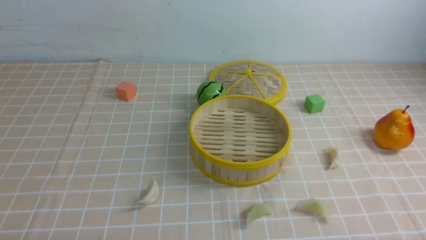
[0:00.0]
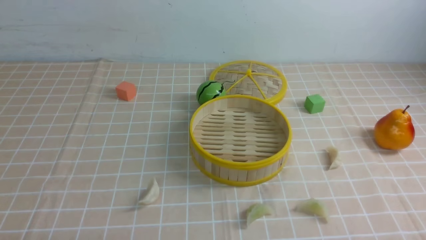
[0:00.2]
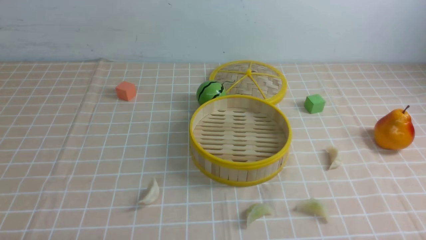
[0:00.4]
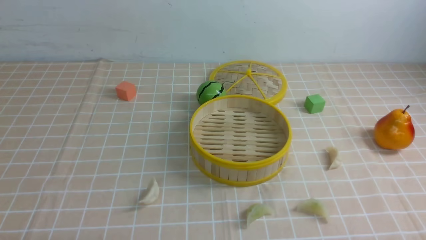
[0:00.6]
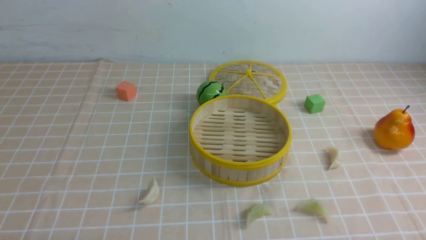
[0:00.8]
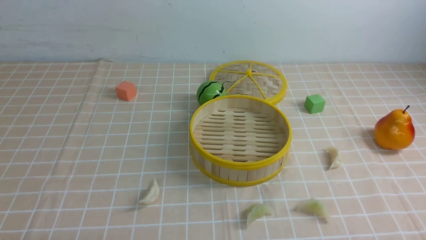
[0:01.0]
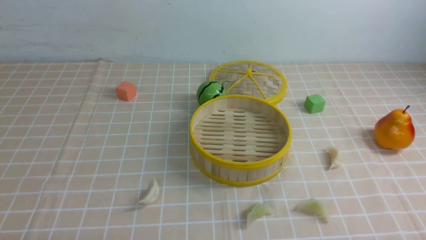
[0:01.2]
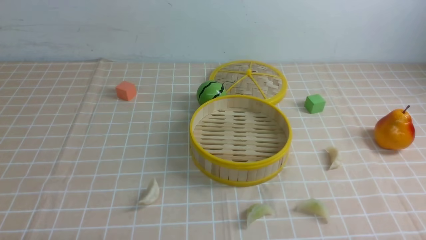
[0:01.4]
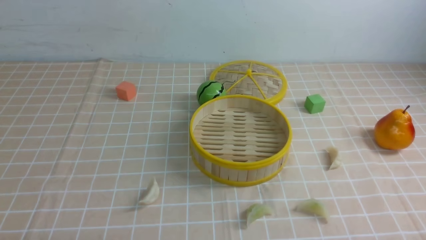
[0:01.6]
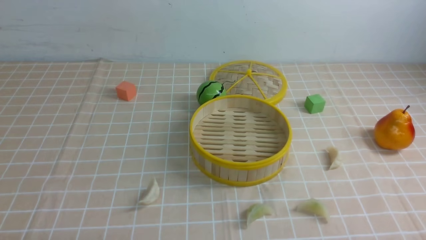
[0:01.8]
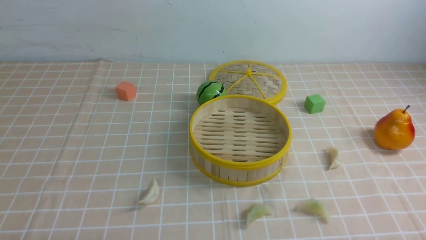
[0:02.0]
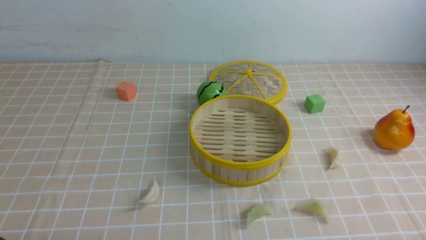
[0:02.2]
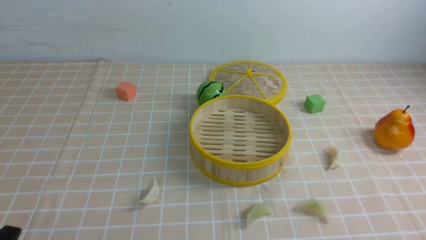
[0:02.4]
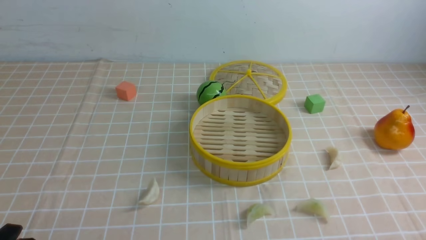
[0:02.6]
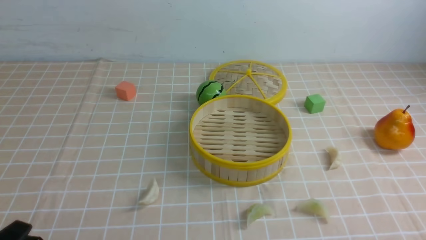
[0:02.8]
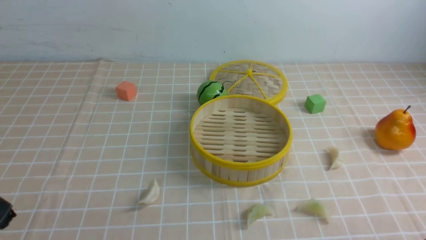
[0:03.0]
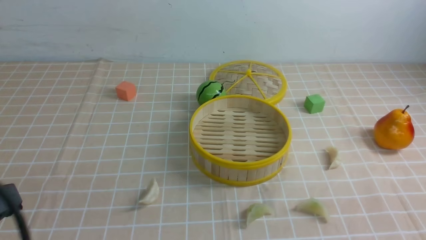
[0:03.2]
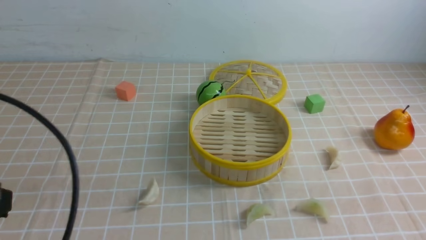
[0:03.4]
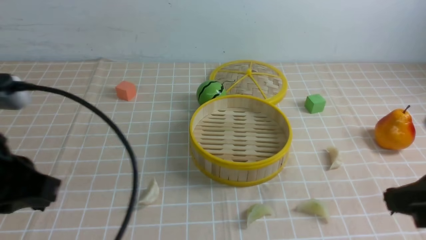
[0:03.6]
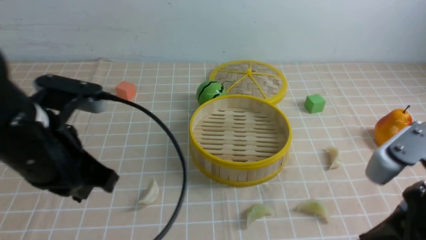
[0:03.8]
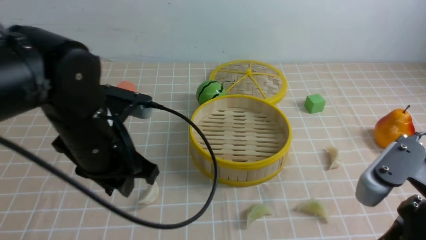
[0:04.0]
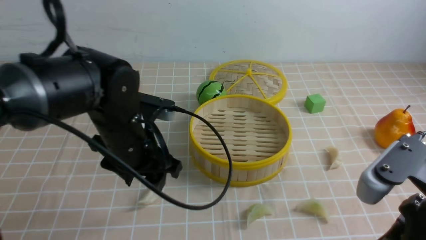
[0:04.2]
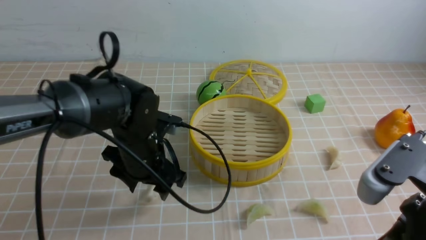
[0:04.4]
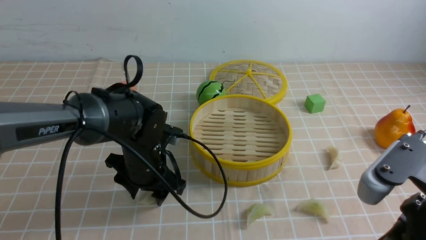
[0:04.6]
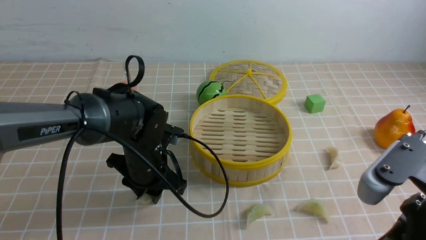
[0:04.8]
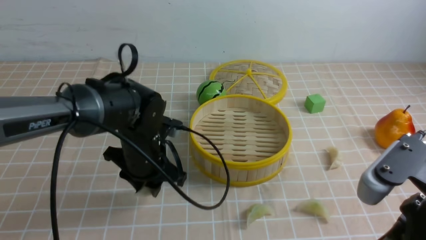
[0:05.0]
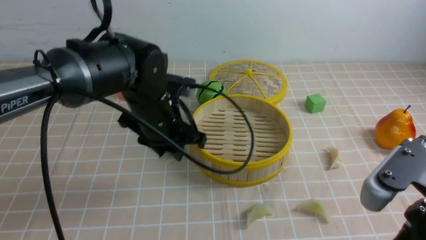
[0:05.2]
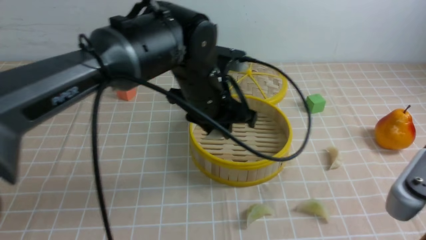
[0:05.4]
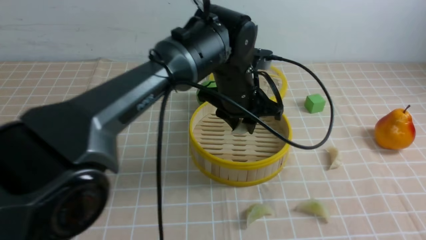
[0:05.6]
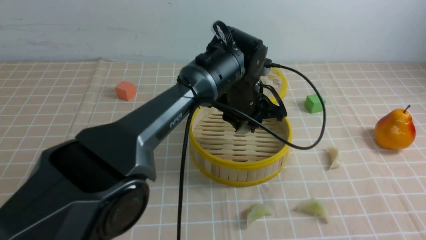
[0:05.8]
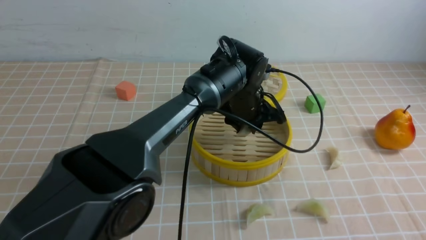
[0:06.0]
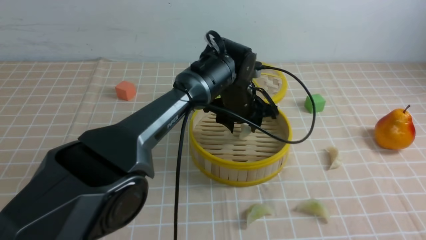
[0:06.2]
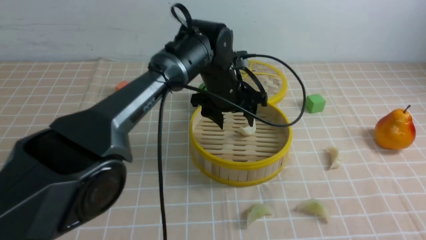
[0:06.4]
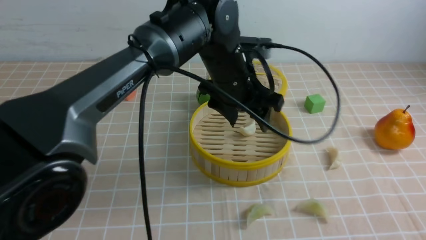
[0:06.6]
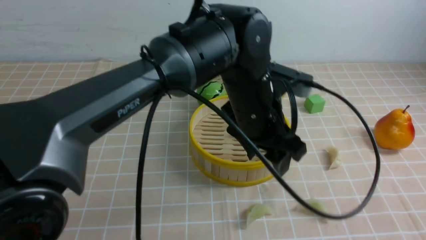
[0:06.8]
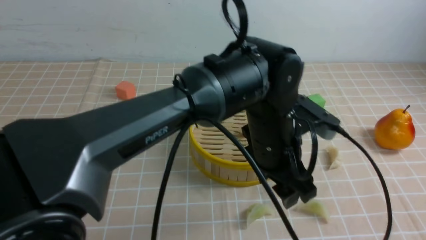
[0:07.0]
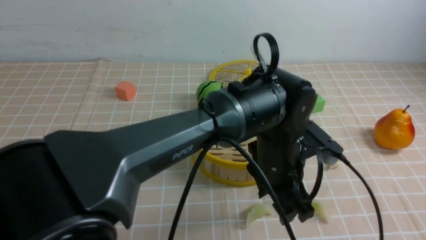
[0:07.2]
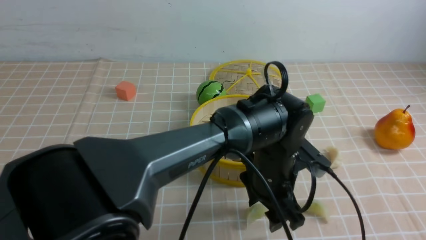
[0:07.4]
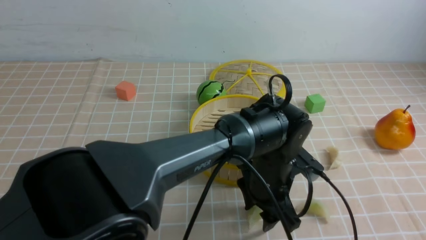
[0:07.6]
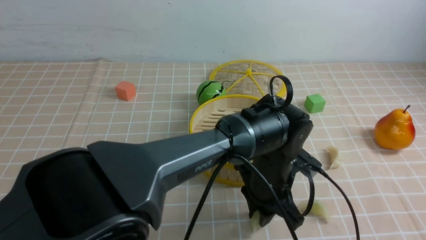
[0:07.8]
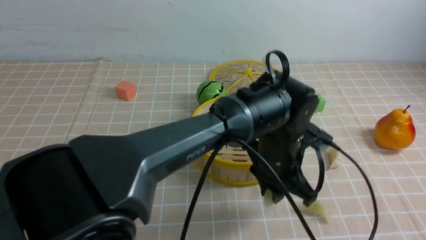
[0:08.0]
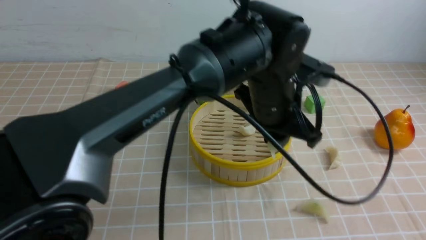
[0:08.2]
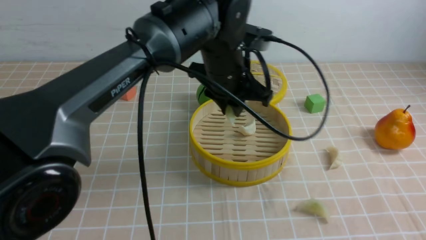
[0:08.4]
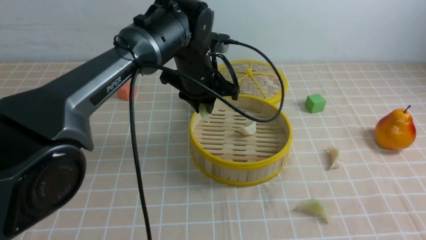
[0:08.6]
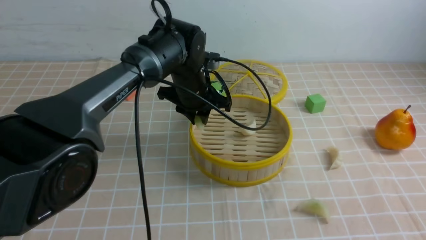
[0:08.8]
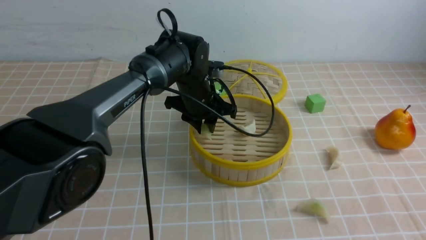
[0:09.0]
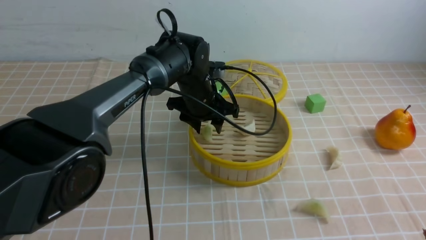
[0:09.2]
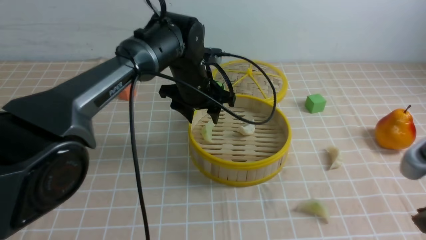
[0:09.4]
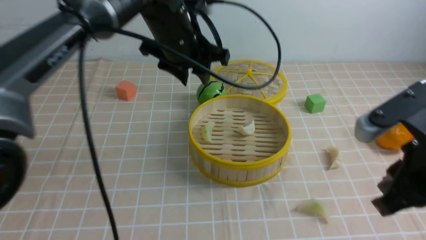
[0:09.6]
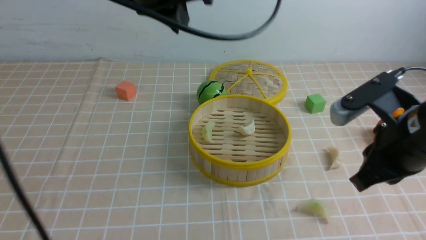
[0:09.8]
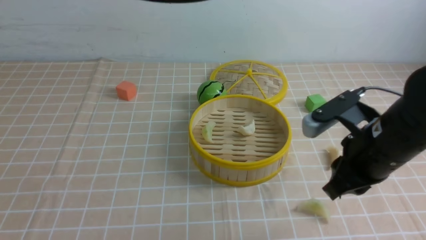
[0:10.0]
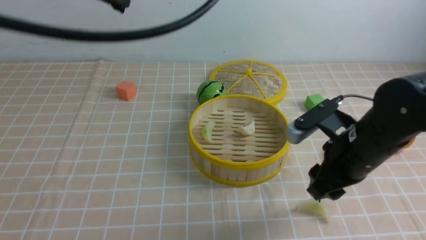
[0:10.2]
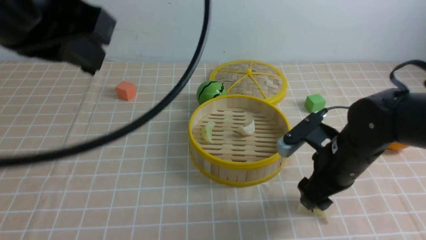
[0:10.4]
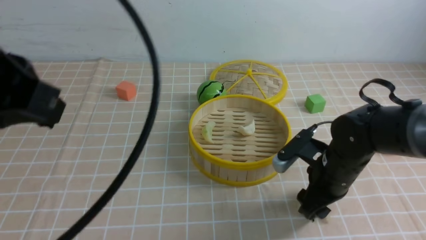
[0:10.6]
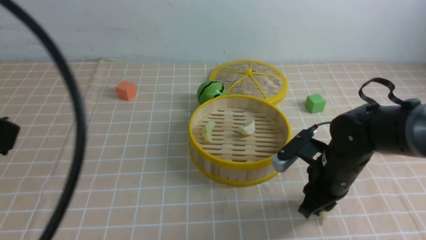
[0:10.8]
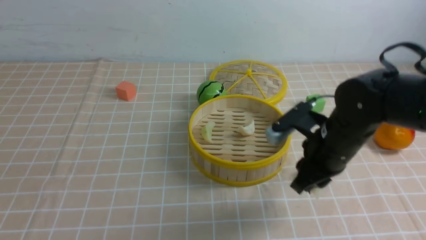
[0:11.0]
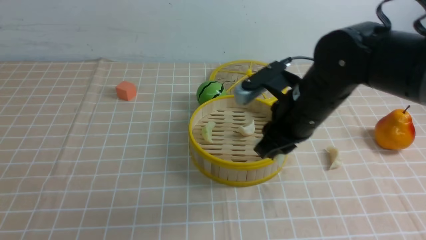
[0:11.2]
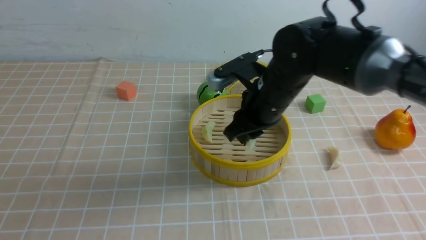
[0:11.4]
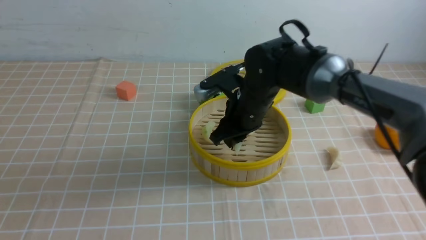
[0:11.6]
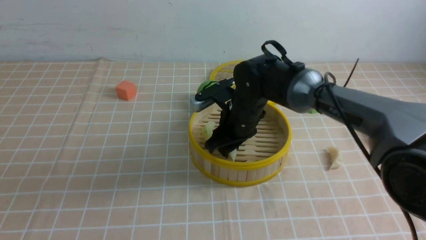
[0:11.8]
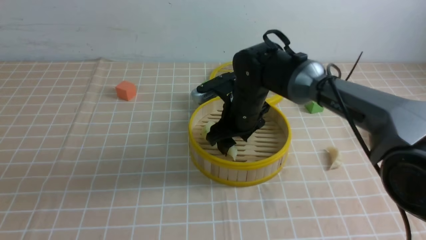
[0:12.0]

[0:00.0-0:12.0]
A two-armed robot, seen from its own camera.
Task of the whole recording: put the dumplings into the steamer on the table with the brown tablecloth.
Step, 0:00.0 to 0:04.6: use the left arm to grab a dumpling.
Step, 0:05.0 to 0:06.2: use the left arm to put the dumpling into the steamer.
Step, 0:06.4 to 0:07.6: use the left arm to grab a dumpling.
Step, 0:08.0 to 0:09.2: use the left arm to put the dumpling into the steamer.
Step, 0:09.4 to 0:10.6: use the right arm to grab a dumpling.
0:00.0 to 0:01.6: Both grippers stay put.
0:03.0 to 0:04.4: The right gripper moves forward, upward and to the left, roughly 15 cm; the left gripper heads forward and to the right, covering some 30 cm, and opens up.
0:04.4 to 0:06.0: The left gripper shifts roughly 20 cm to the right and forward, and closes. The right gripper goes some 10 cm backward.
0:06.0 to 0:07.6: The left gripper heads backward, covering some 15 cm.
0:07.6 to 0:09.0: The left gripper moves forward and to the left, approximately 20 cm.
0:09.0 to 0:10.4: The right gripper travels forward and downward by about 25 cm, and opens its fingers. The left gripper goes about 40 cm backward, upward and to the left, and closes.
0:10.4 to 0:12.0: The left gripper heads backward and to the left, covering some 15 cm; the right gripper goes approximately 15 cm to the left and forward, and closes and opens again.

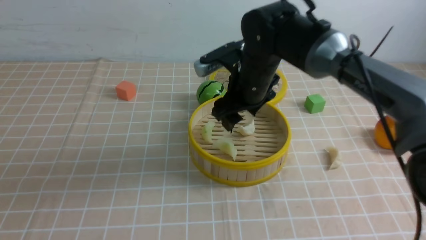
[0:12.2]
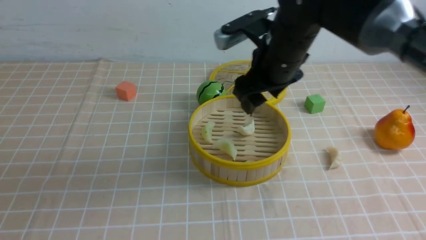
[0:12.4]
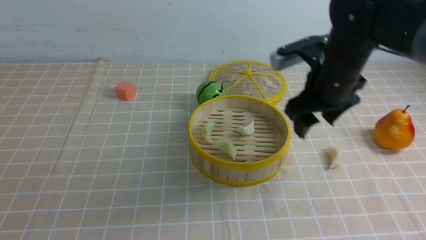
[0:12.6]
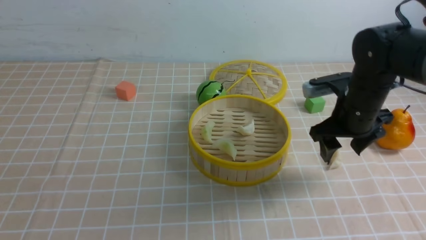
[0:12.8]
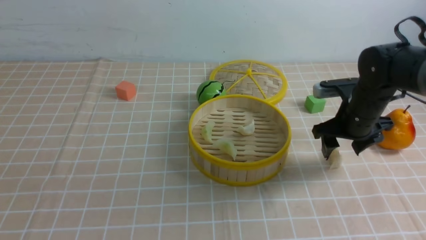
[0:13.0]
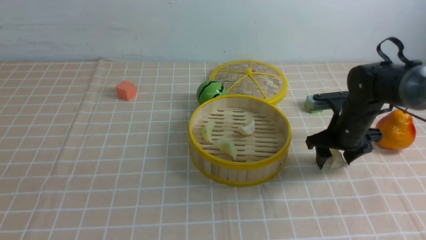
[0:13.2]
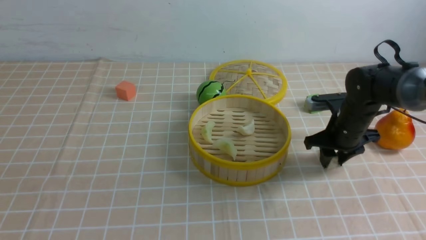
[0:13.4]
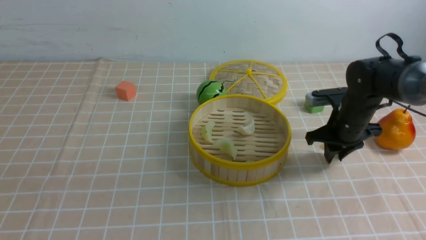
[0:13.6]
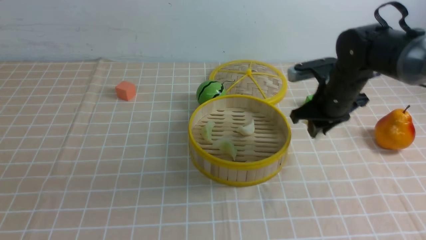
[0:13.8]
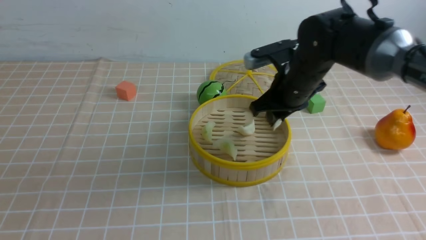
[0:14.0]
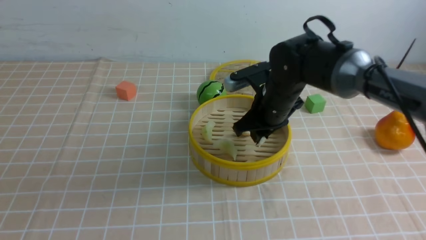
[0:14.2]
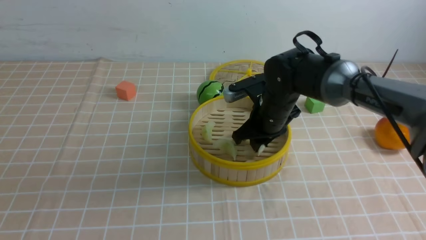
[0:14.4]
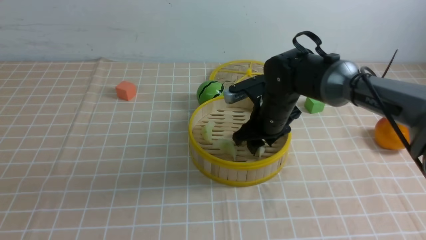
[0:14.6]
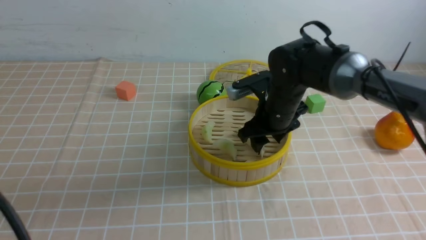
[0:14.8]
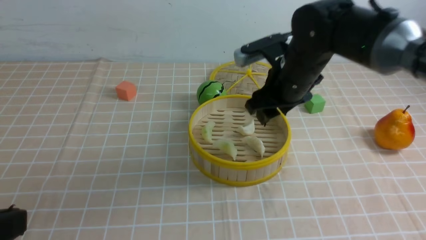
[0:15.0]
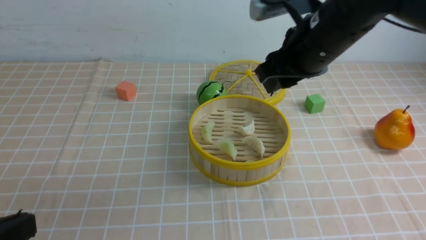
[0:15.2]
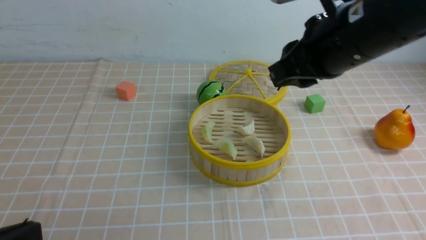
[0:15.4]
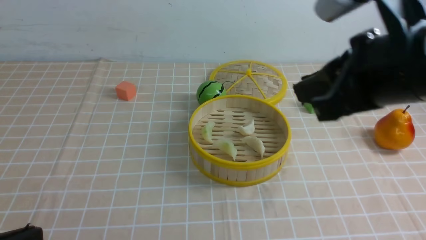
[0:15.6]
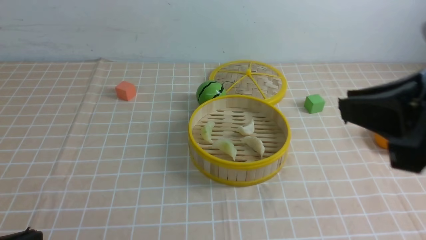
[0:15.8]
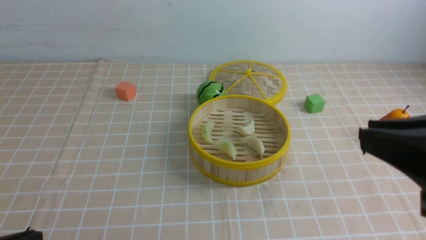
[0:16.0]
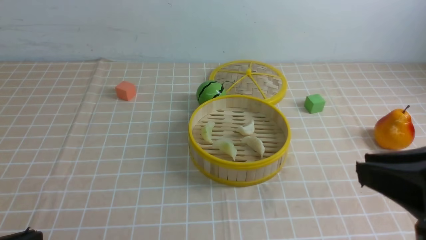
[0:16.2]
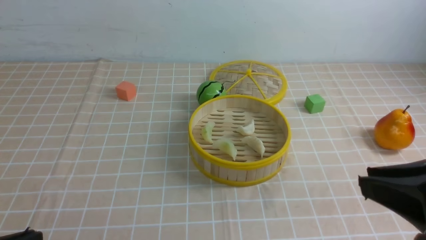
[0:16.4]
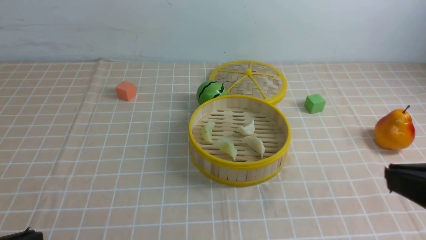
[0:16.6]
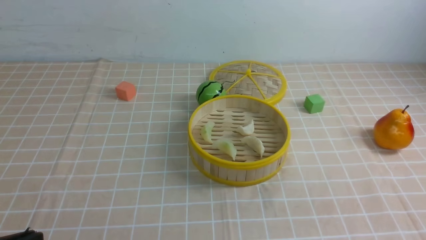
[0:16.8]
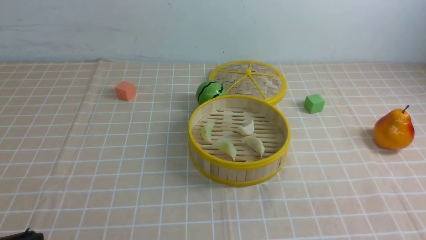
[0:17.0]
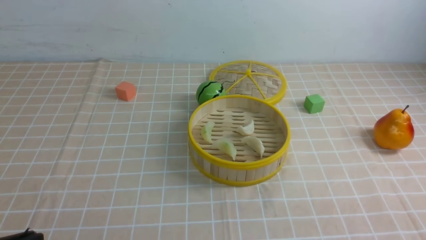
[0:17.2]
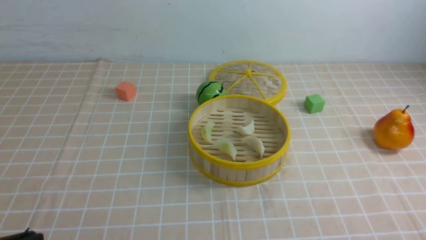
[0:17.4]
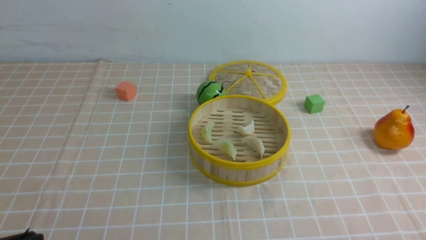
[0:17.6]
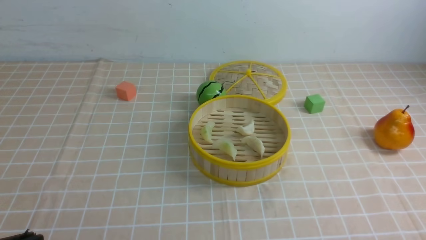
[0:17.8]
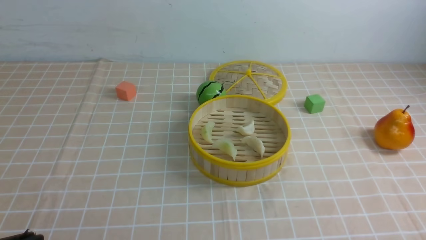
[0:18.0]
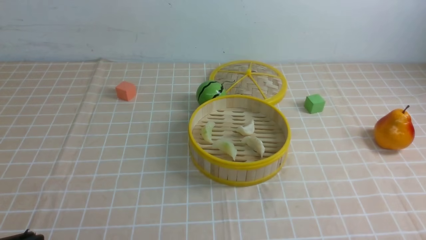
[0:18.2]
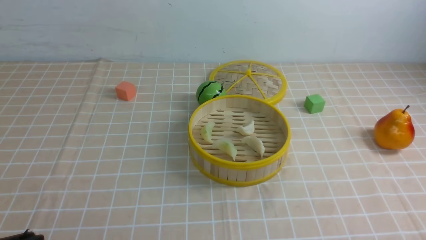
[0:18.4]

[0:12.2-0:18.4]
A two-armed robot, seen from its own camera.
Task of the whole recording: put the dumplings into the steamer on the table with the brown tablecloth.
Step, 0:12.4 to 0:13.4: use the right arm to grab a dumpling.
Step, 0:13.6 to 0:15.0: use the right arm to put the dumpling into the steamer.
0:12.2 to 0:13.8: The right gripper shifts some 10 cm to the right and downward, and closes.
0:13.8 to 0:15.4: The left gripper is displaced downward by about 15 cm. The right gripper is displaced upward and backward by some 25 cm, and opens, then closes once more.
0:15.4 to 0:16.8: The right gripper moves backward and to the right, approximately 25 cm, and closes its fingers.
